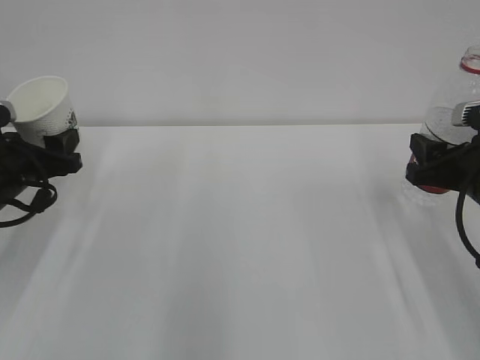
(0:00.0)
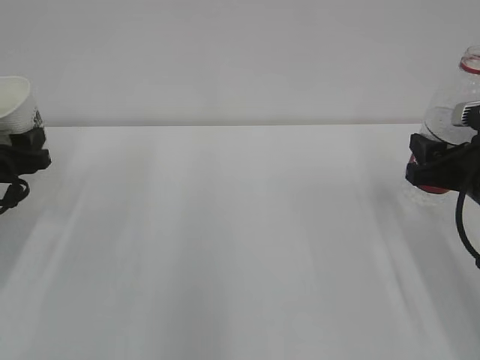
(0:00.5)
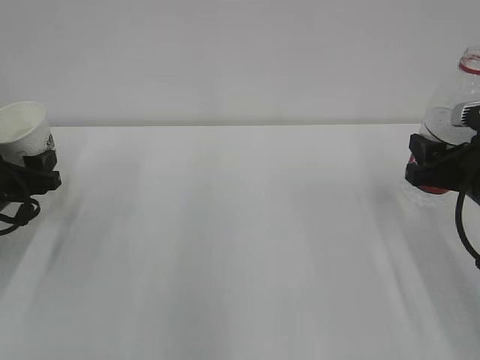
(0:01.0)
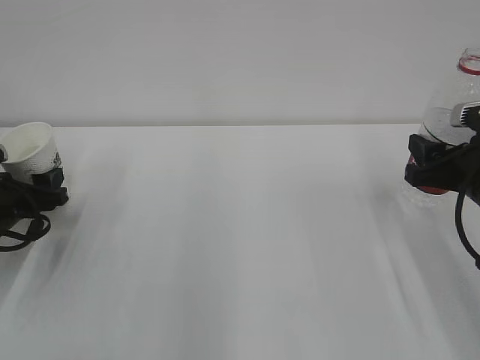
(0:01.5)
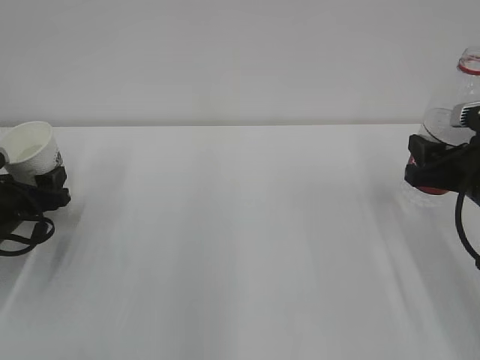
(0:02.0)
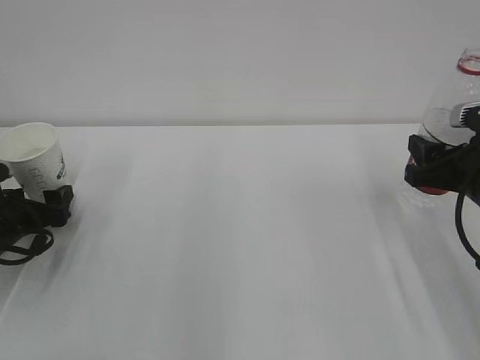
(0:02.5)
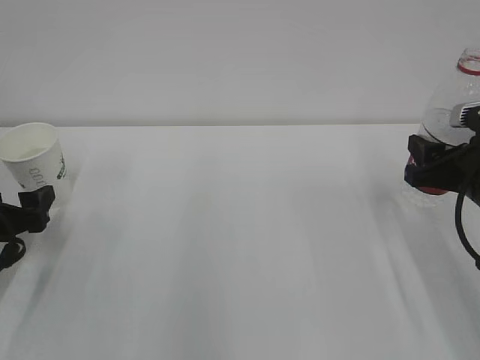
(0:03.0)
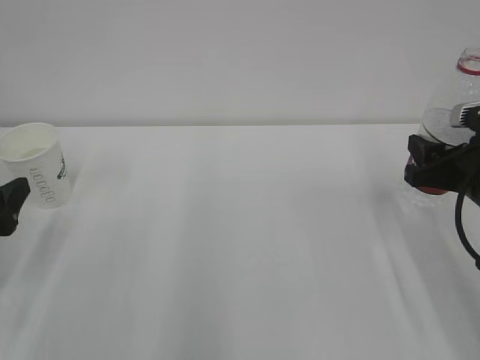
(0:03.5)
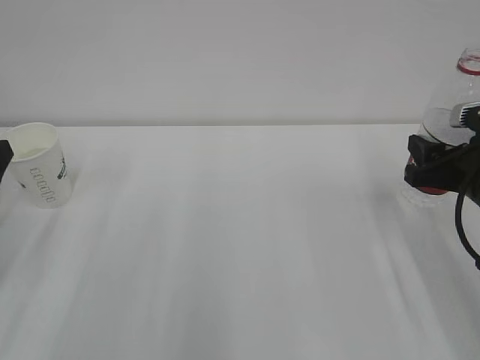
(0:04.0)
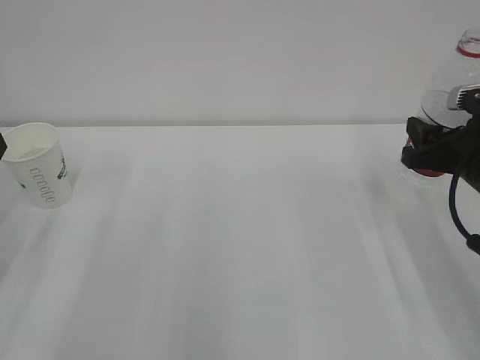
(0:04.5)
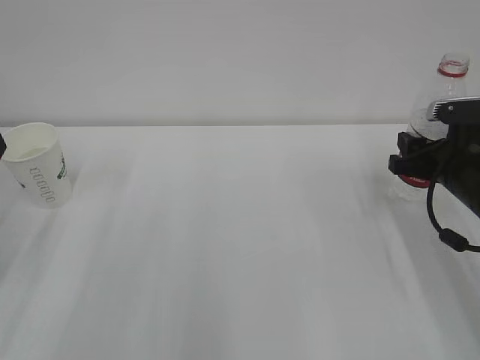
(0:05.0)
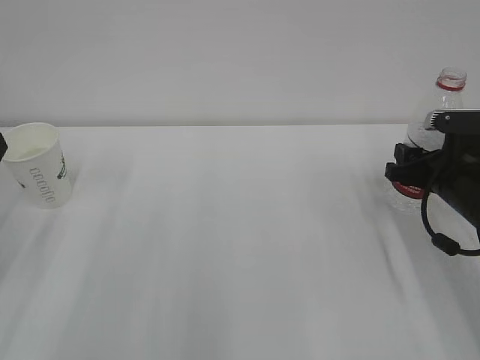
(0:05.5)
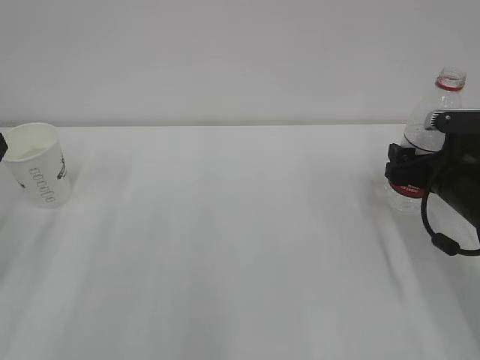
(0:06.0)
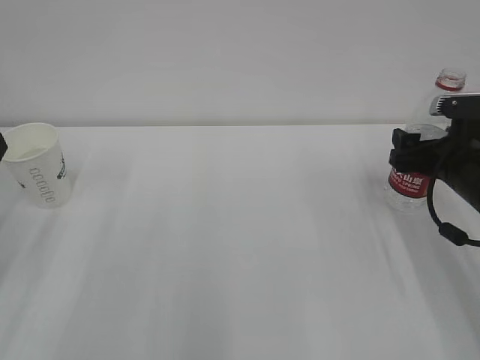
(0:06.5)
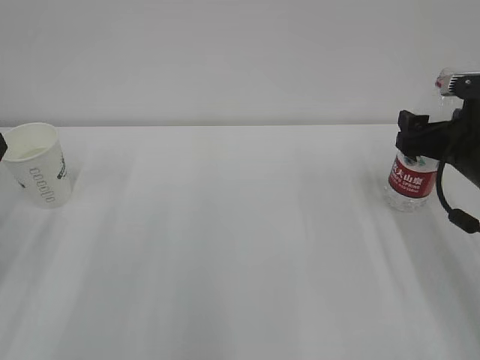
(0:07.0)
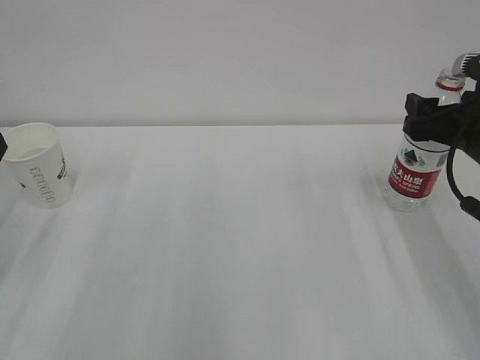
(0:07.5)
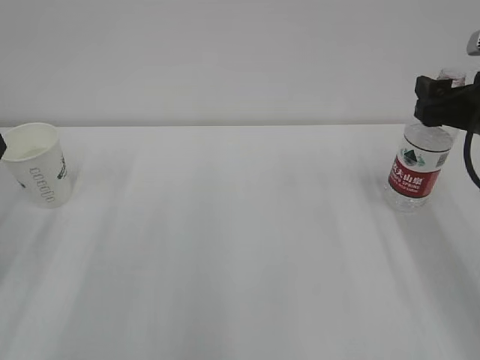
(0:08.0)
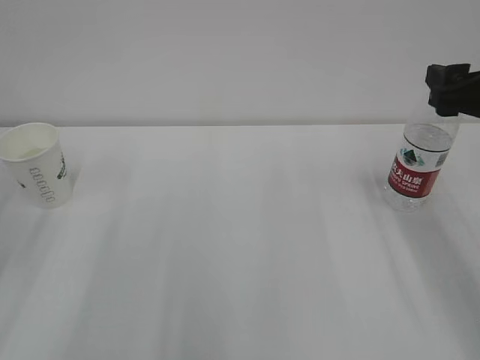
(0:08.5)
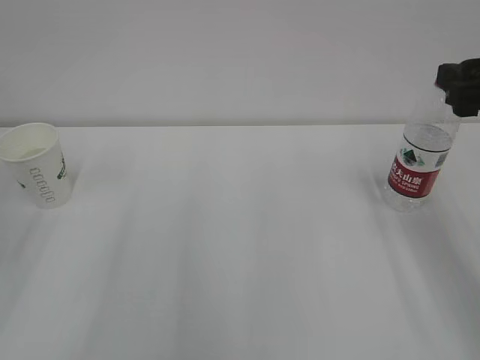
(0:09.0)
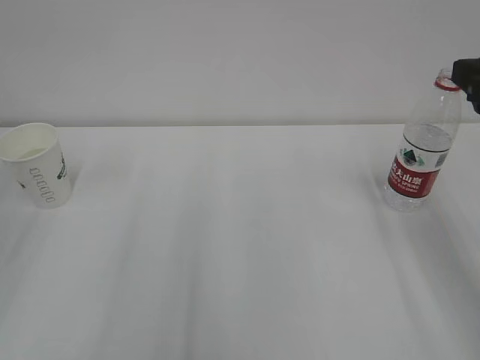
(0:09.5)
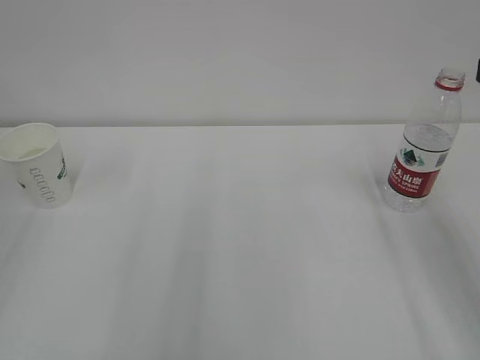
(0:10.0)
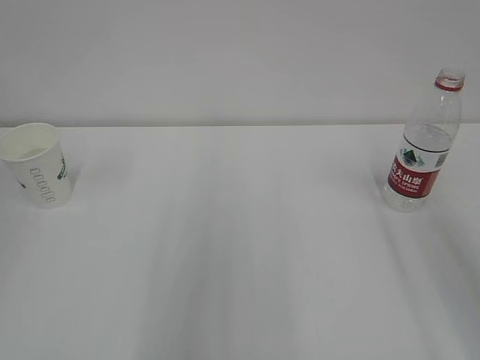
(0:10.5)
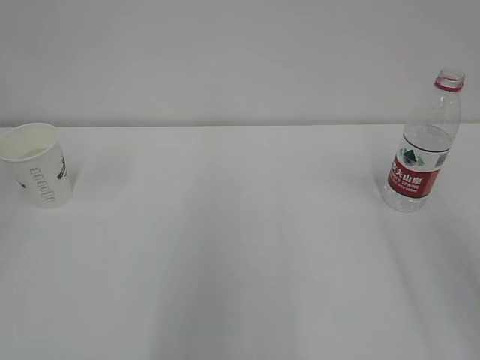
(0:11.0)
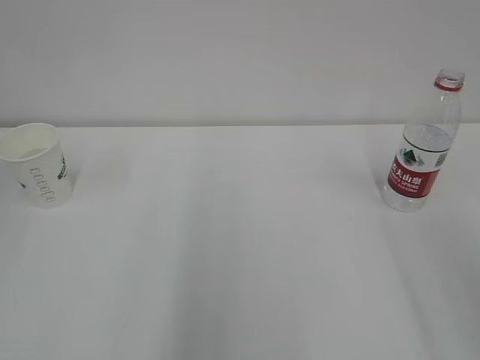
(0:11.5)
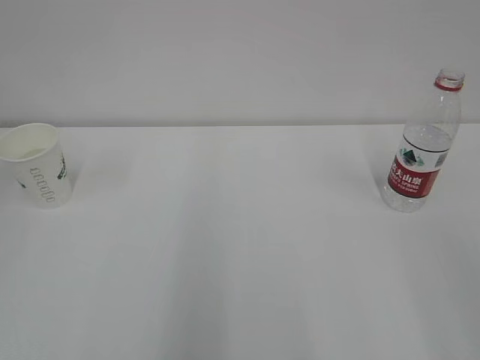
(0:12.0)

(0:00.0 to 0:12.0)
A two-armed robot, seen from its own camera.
0:00.0 - 0:02.0: The left gripper heads downward, covering about 5 cm.
0:02.0 - 0:04.0: The left gripper travels upward and backward by roughly 15 cm, and opens.
0:04.0 - 0:06.0: The right gripper moves some 5 cm, and opens.
0:06.0 - 0:08.0: The right gripper is displaced upward by about 10 cm.
0:08.0 - 0:10.0: The right gripper is displaced backward and upward by approximately 15 cm.
